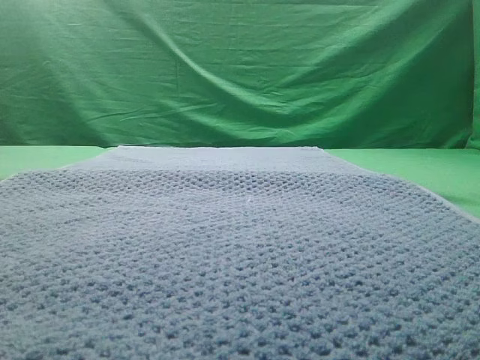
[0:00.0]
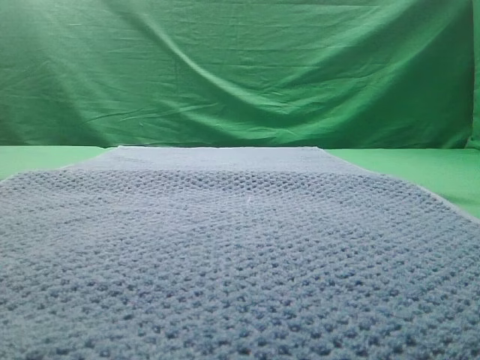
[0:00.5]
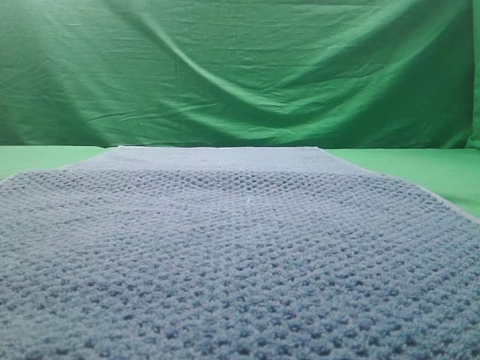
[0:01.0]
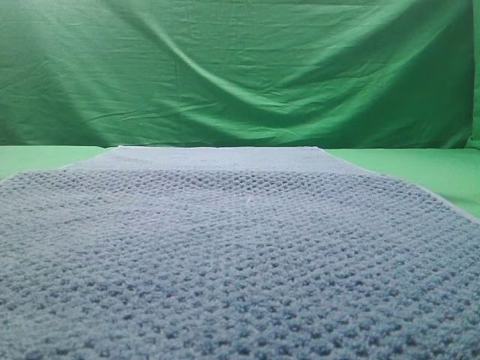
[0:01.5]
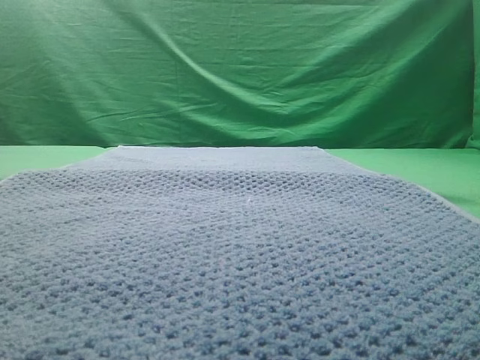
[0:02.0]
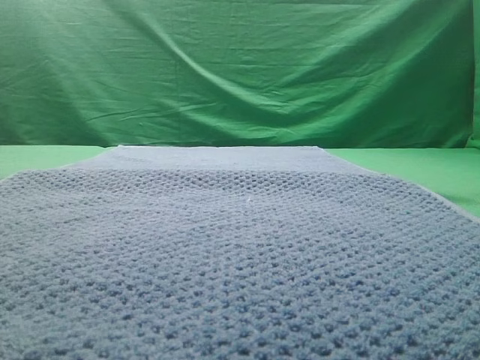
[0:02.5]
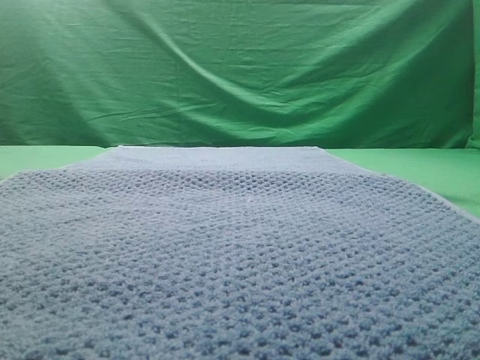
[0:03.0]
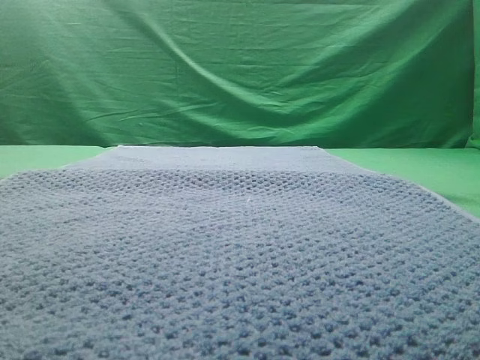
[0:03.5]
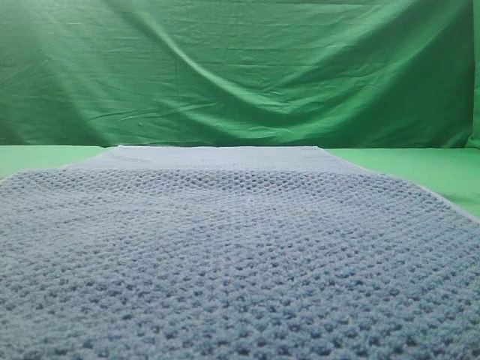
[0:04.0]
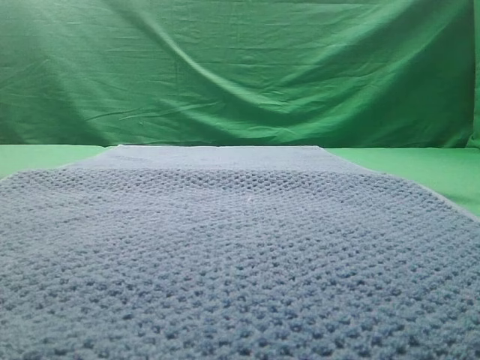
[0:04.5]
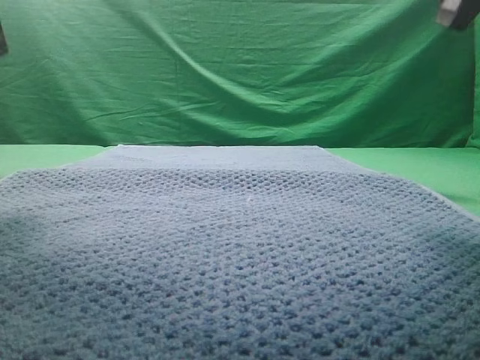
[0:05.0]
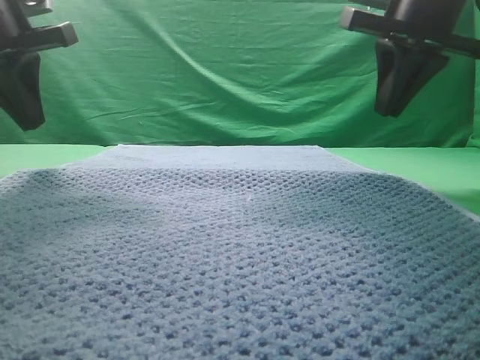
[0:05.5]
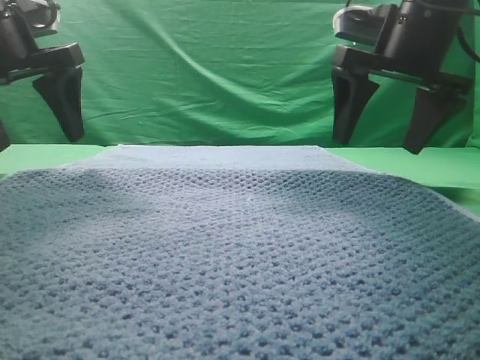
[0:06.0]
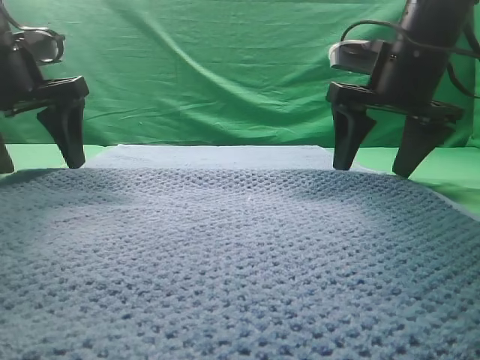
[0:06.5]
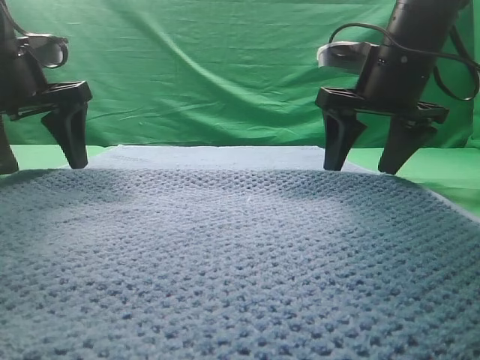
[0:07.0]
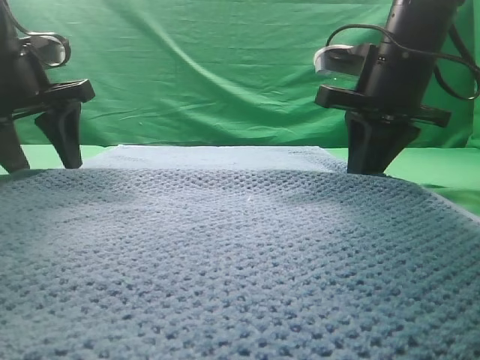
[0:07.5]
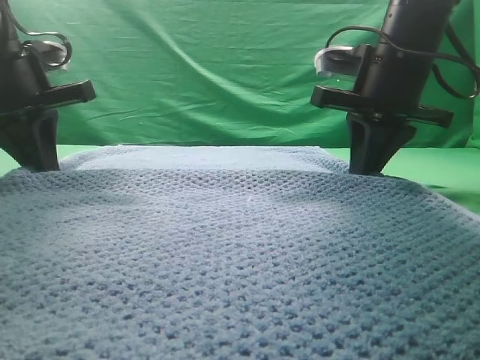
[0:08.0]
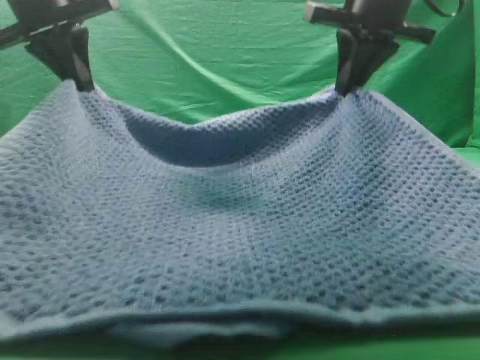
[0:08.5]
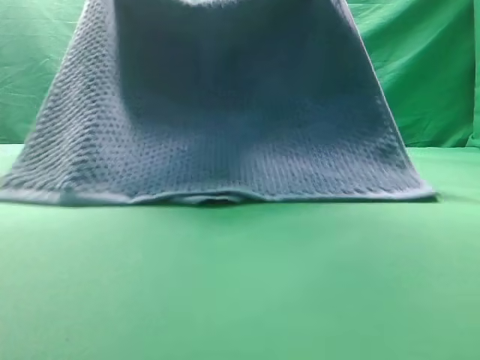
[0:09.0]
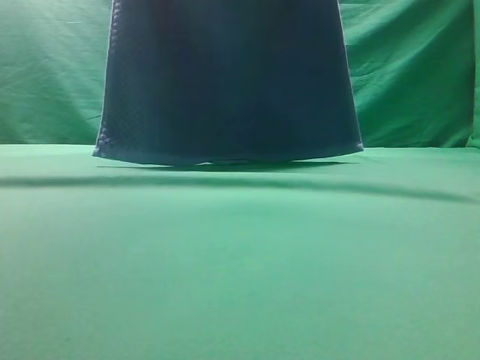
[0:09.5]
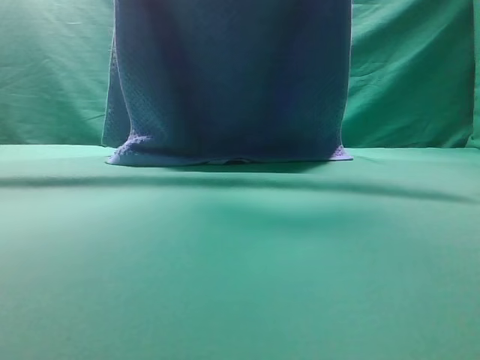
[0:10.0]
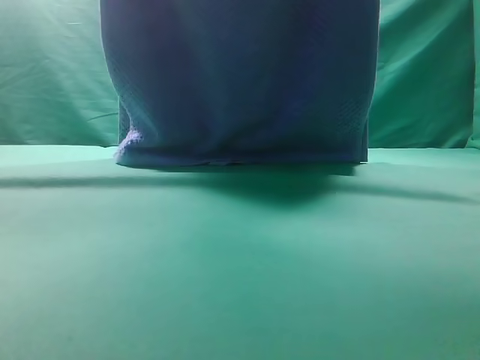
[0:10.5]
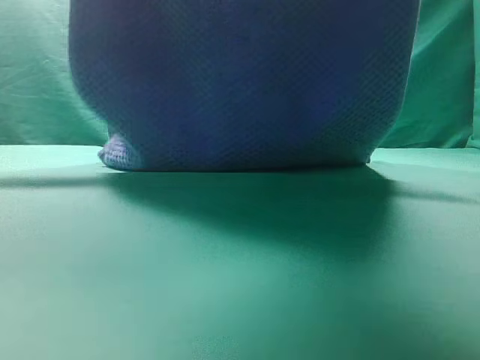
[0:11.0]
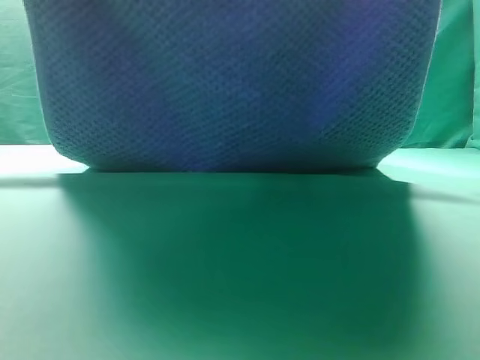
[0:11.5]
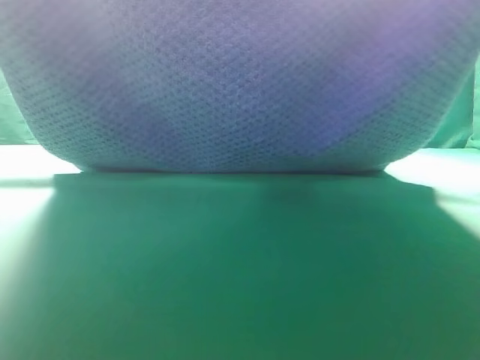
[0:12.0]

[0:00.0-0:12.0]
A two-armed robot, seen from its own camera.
Task of the whole recording: fold the towel on the table twice.
Step, 0:00.0 to 0:09.0: pick up the towel with two arm.

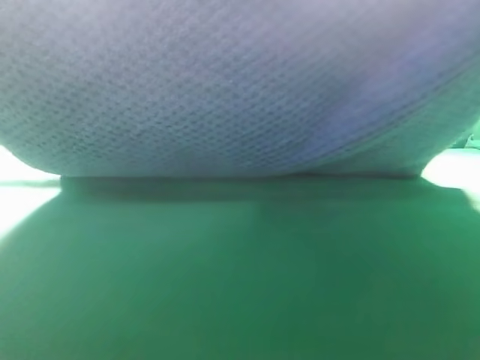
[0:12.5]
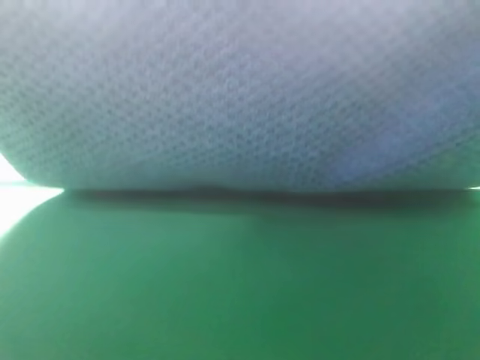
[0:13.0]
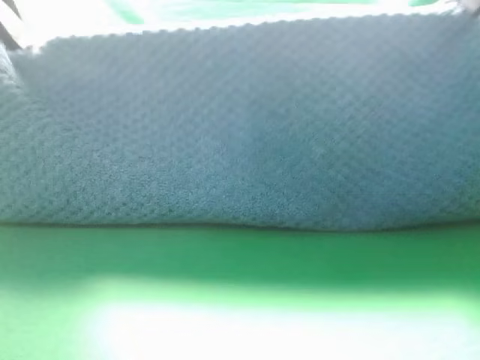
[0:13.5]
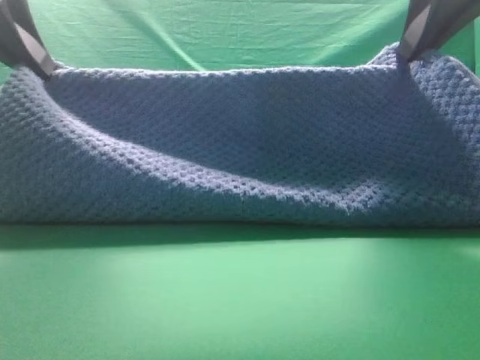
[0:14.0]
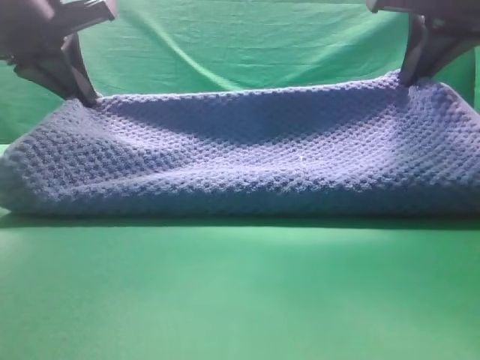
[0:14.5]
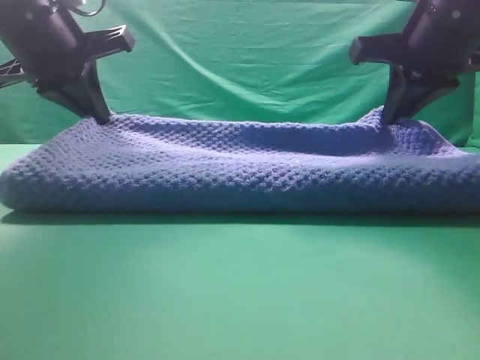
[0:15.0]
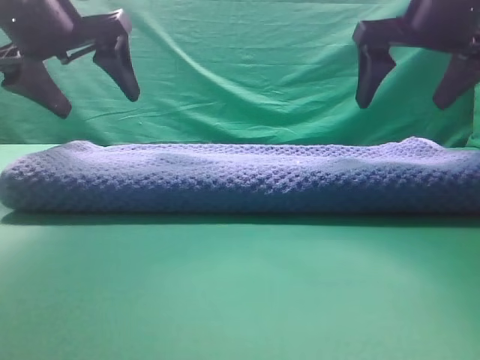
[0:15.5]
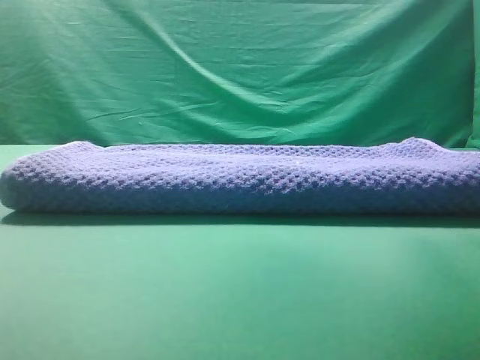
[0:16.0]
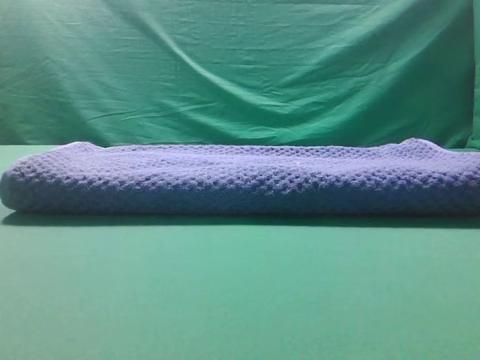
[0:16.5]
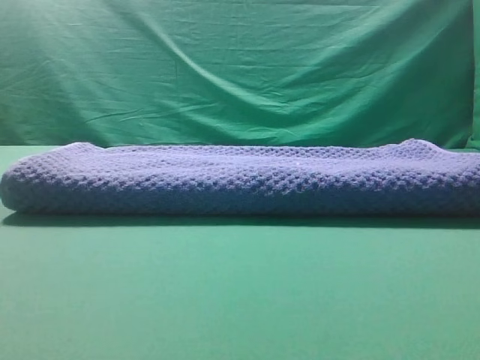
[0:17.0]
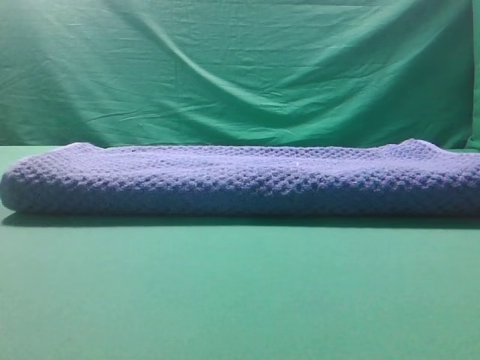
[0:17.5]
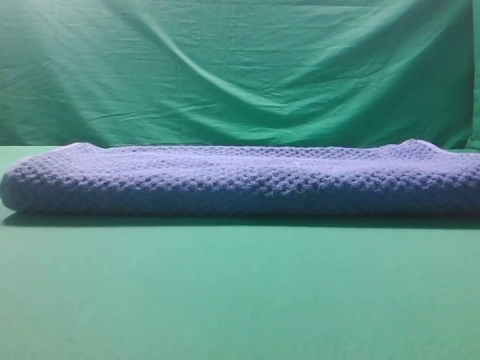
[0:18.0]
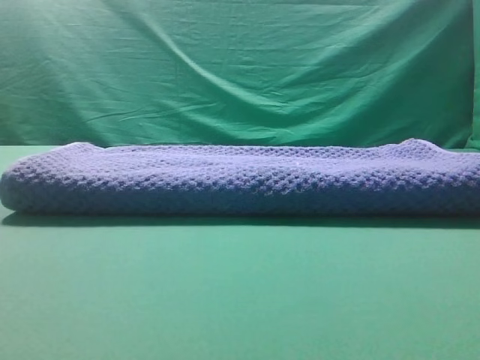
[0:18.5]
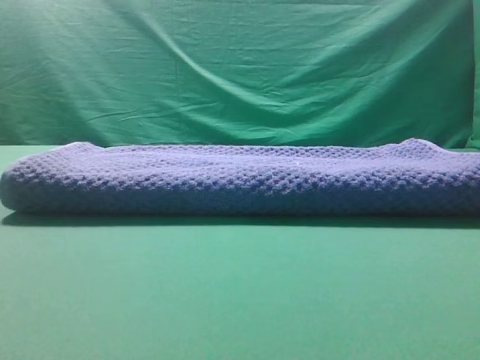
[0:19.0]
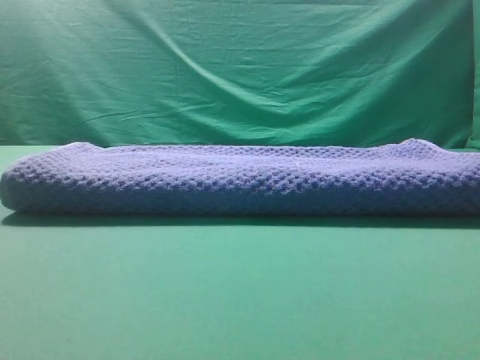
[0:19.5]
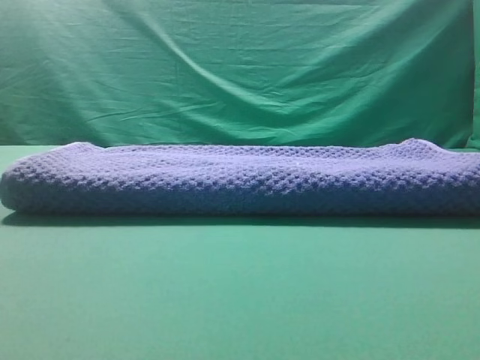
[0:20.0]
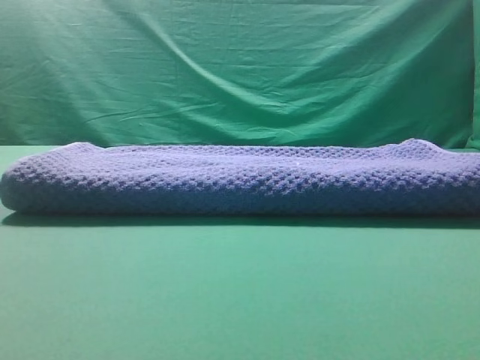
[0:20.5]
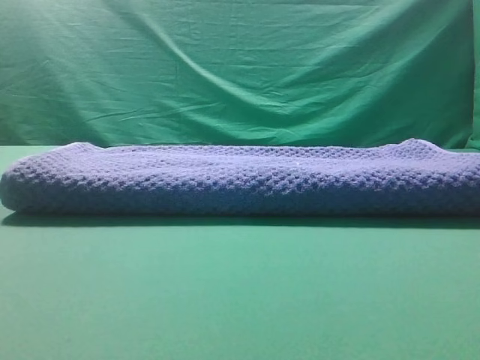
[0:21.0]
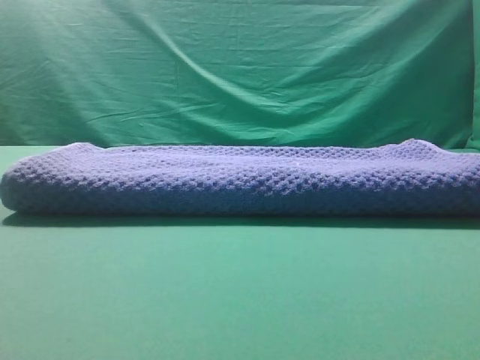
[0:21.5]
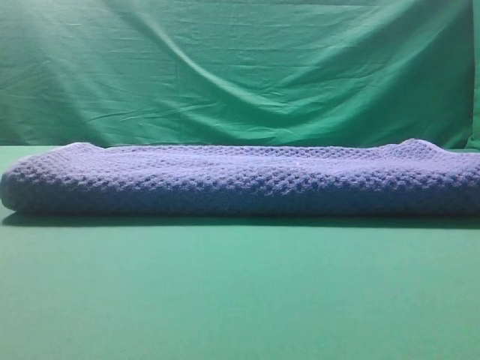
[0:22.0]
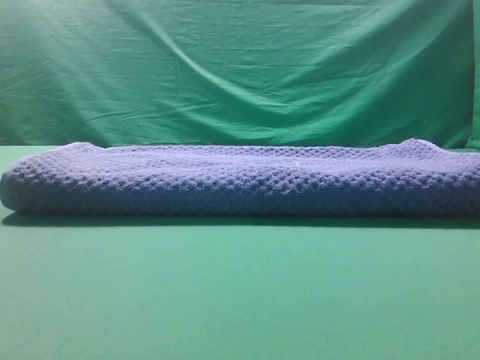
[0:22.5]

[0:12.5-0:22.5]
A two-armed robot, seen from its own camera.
Task of the whole recording: fold the towel on the table twice.
Step, 0:12.5 to 0:15.0: Fold the towel twice on the table.

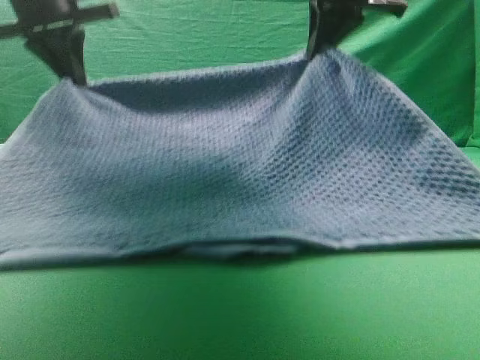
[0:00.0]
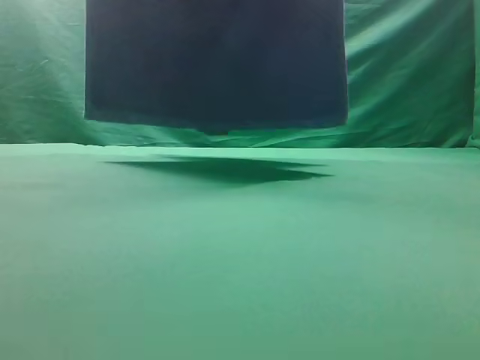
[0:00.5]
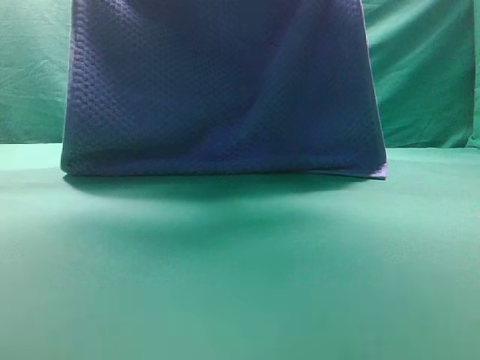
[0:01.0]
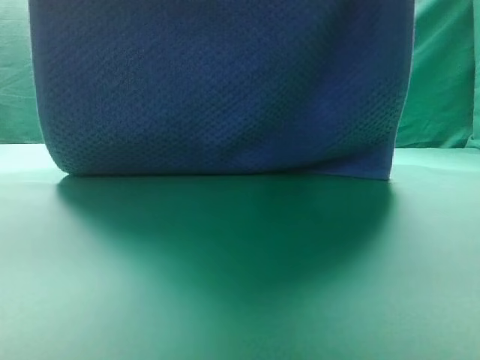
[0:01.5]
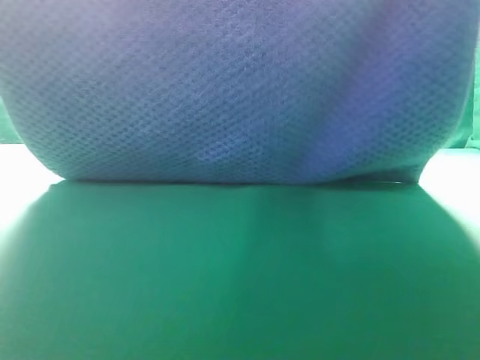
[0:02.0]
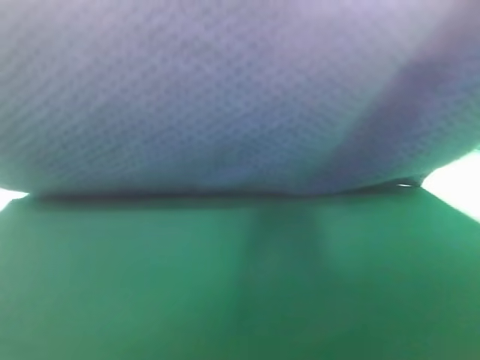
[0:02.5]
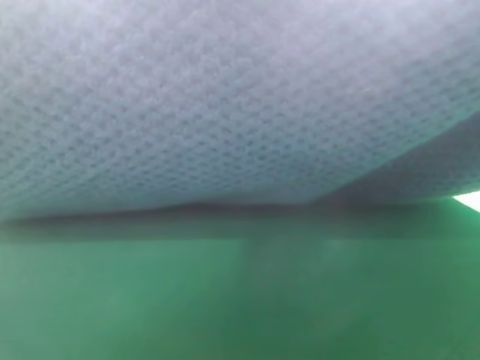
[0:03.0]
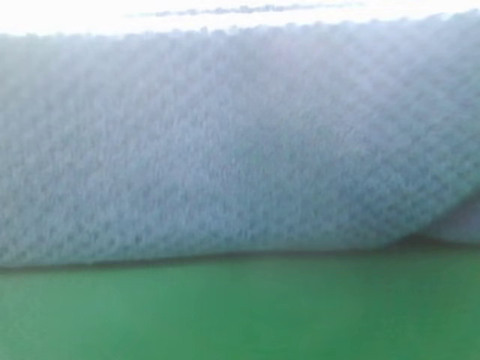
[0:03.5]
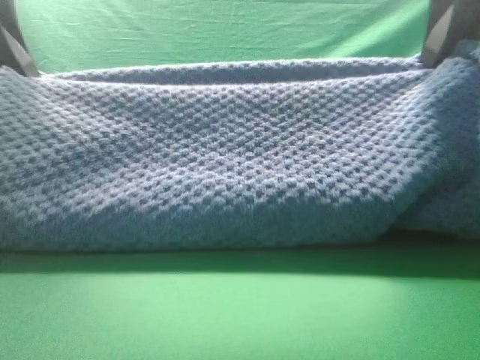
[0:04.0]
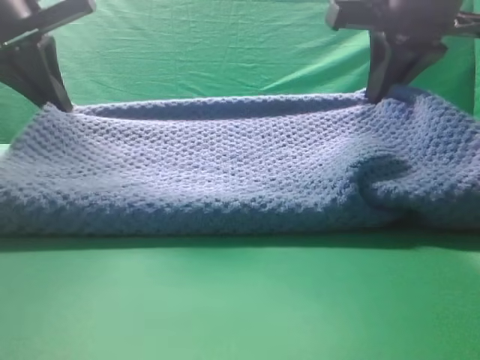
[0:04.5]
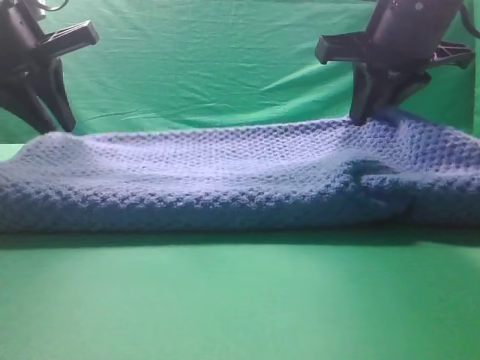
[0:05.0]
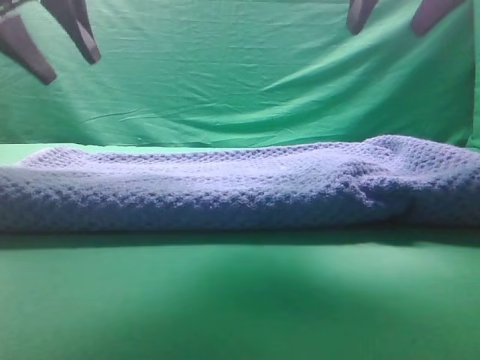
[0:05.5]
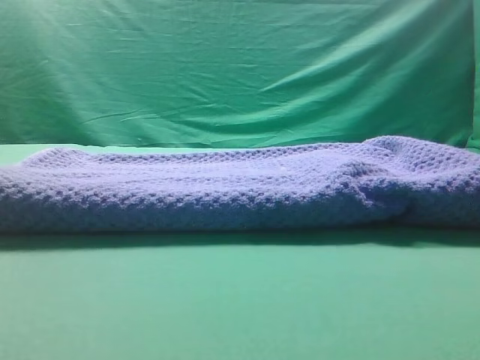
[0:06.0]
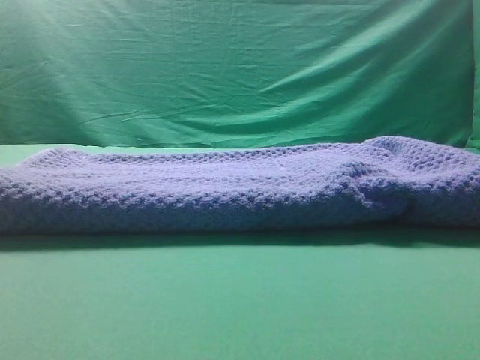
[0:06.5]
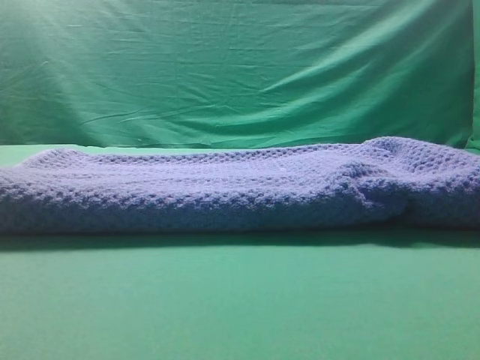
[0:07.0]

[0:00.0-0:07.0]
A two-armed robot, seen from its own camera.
Task of the whole recording: fold the towel on the table twice.
Step, 0:00.5 to 0:05.0: Fold the towel twice on the table.
